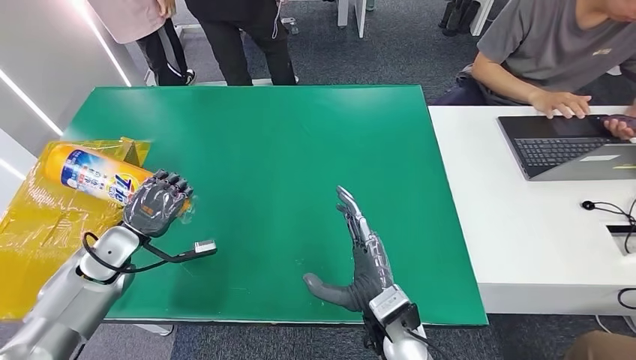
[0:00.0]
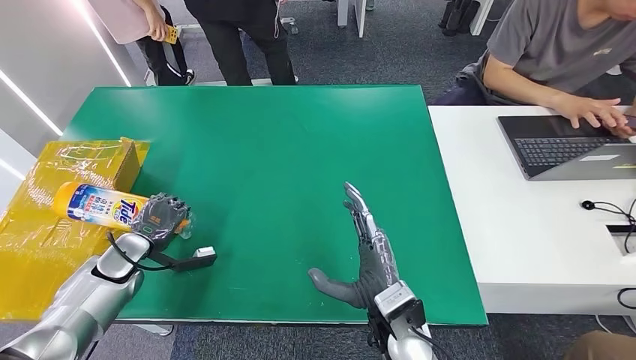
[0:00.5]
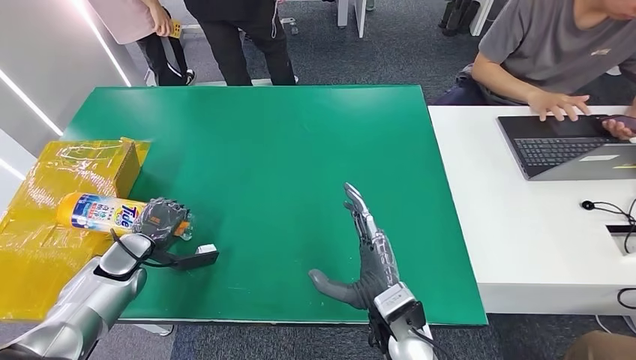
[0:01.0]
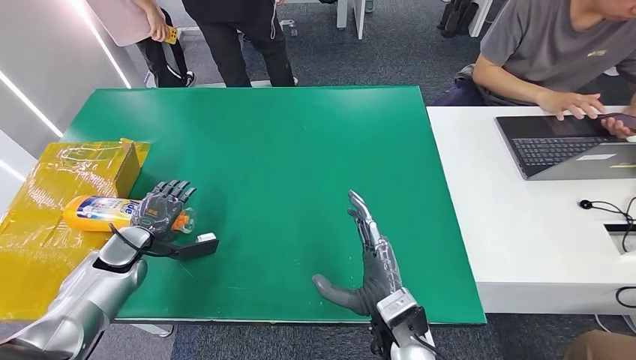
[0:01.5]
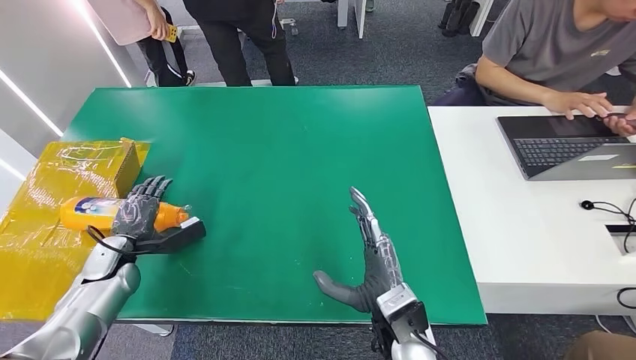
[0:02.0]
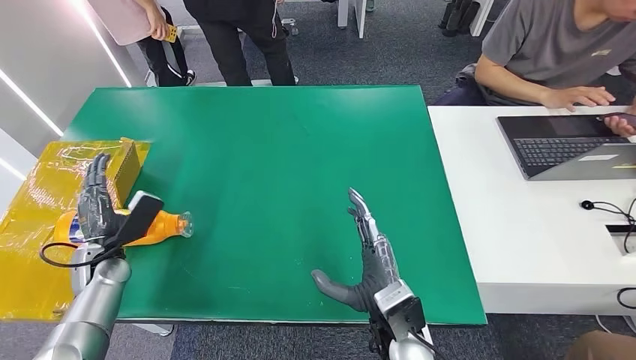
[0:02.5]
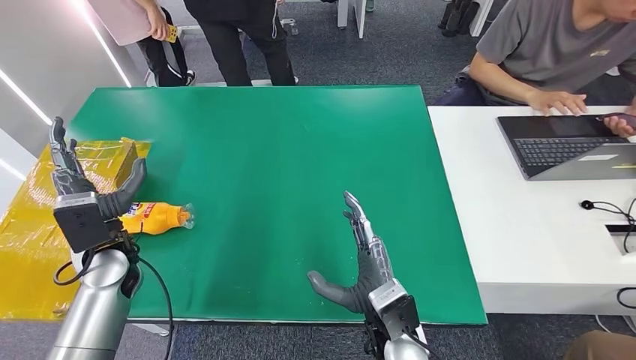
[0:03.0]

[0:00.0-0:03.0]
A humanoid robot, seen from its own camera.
Step, 0:00.0 to 0:03.0: Turn the bottle to the front side.
0:01.5 to 0:03.0: The left hand is displaced upward and to the right by approximately 10 cm.
